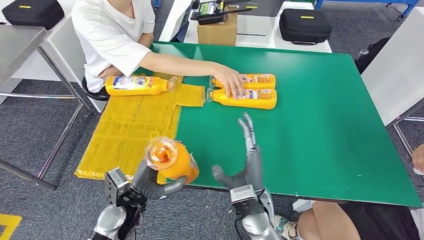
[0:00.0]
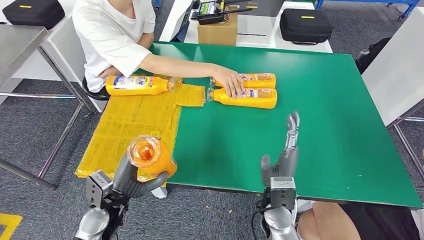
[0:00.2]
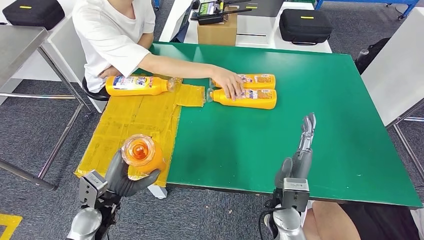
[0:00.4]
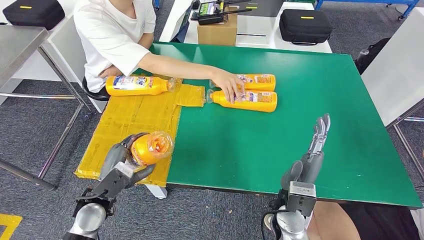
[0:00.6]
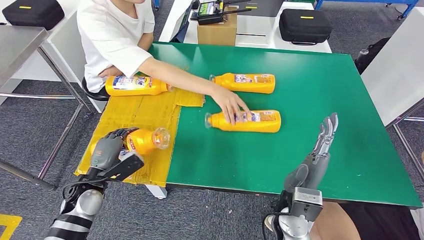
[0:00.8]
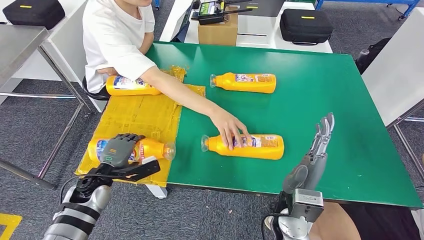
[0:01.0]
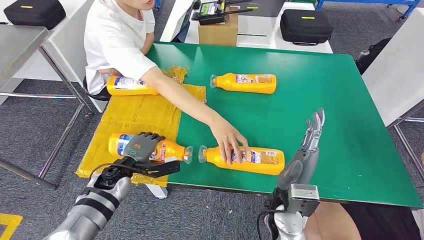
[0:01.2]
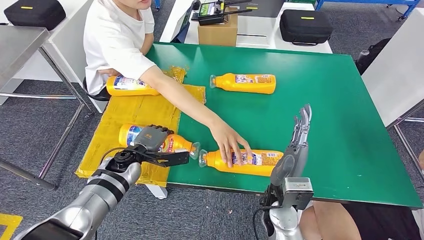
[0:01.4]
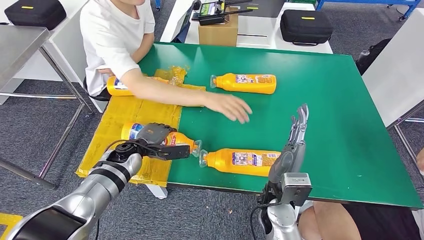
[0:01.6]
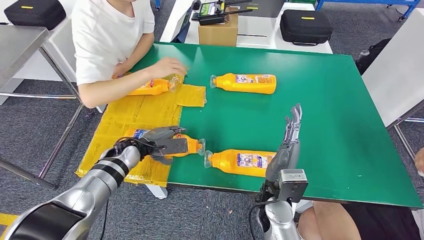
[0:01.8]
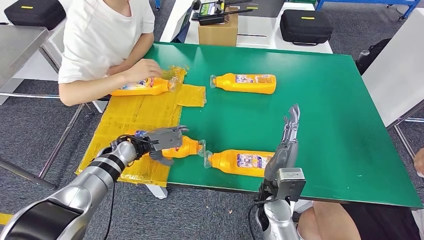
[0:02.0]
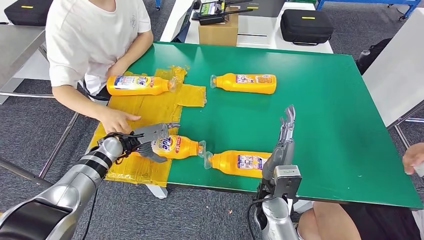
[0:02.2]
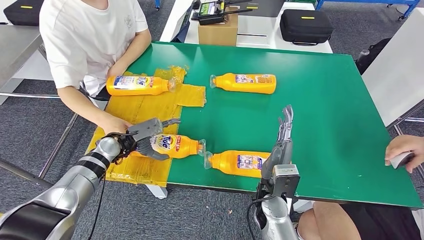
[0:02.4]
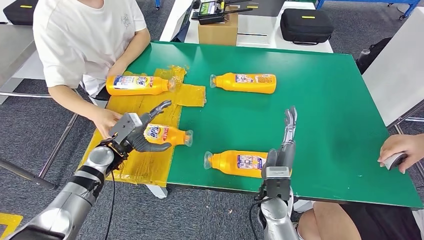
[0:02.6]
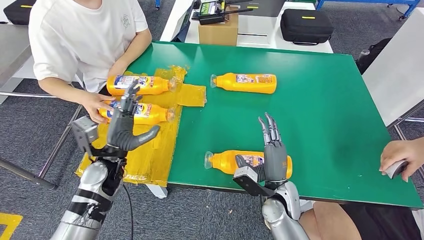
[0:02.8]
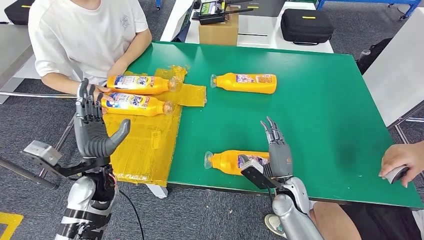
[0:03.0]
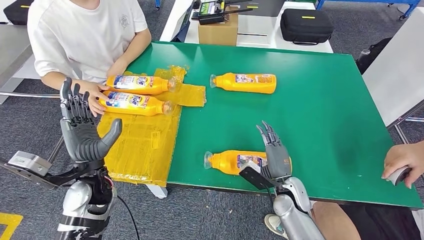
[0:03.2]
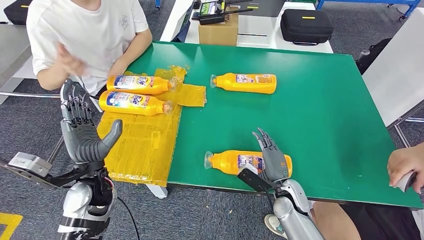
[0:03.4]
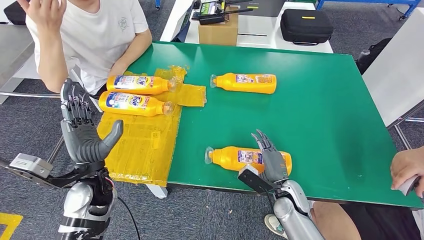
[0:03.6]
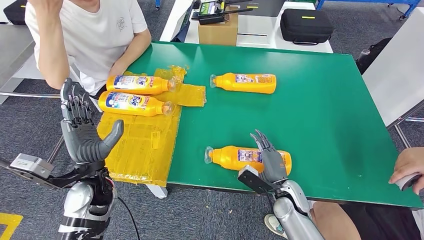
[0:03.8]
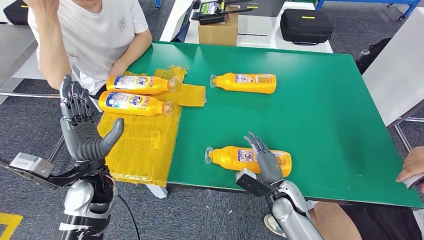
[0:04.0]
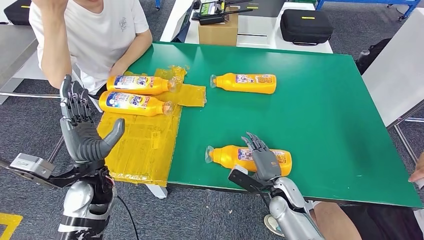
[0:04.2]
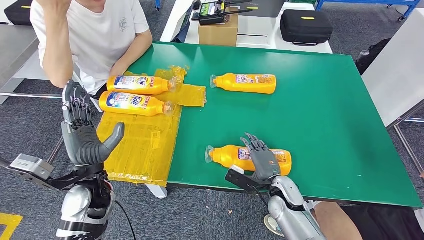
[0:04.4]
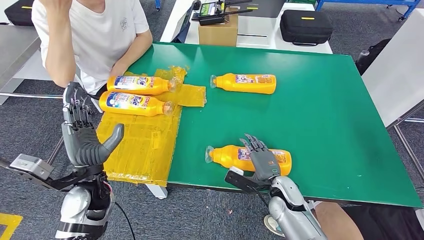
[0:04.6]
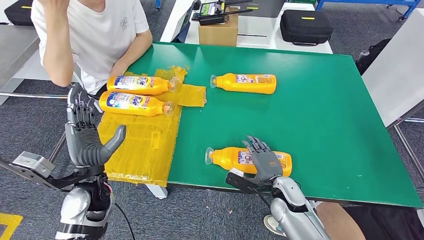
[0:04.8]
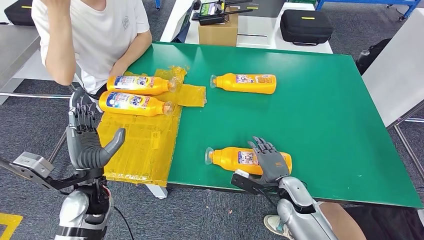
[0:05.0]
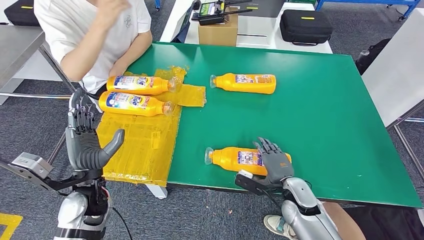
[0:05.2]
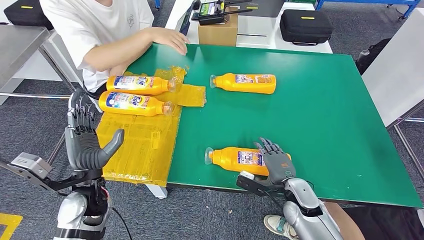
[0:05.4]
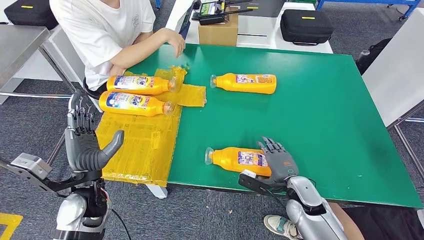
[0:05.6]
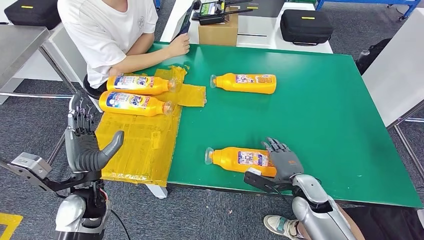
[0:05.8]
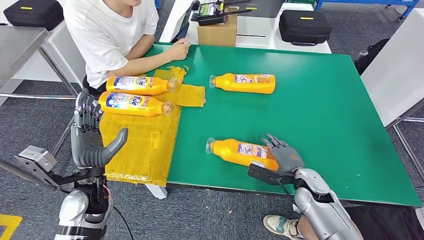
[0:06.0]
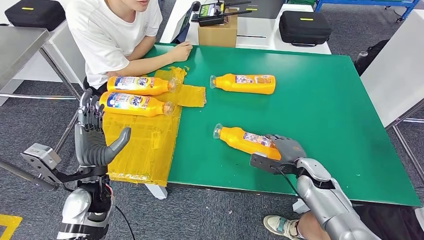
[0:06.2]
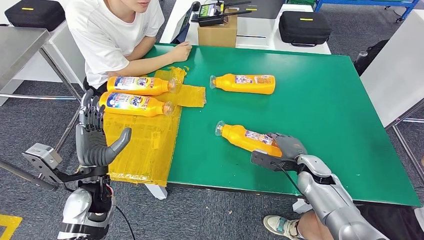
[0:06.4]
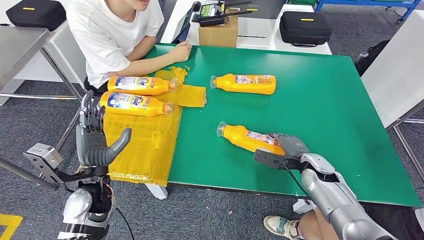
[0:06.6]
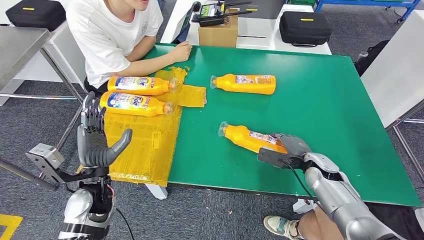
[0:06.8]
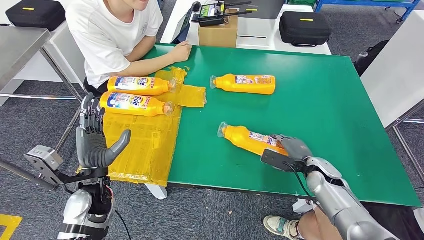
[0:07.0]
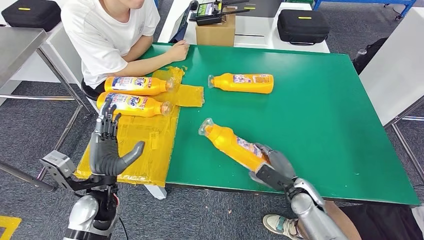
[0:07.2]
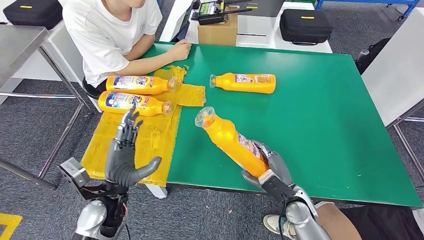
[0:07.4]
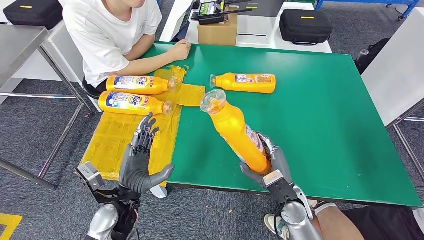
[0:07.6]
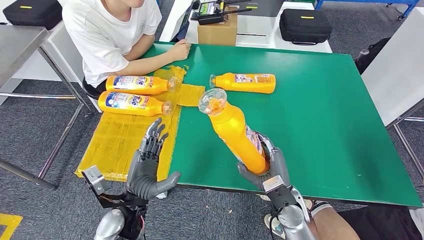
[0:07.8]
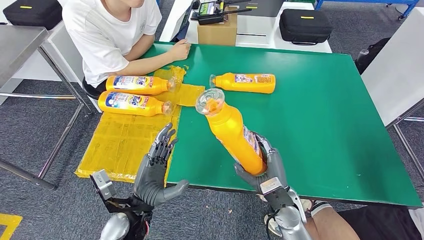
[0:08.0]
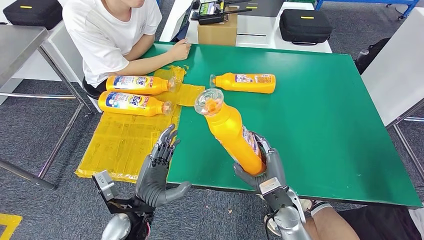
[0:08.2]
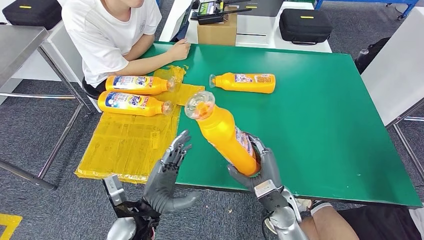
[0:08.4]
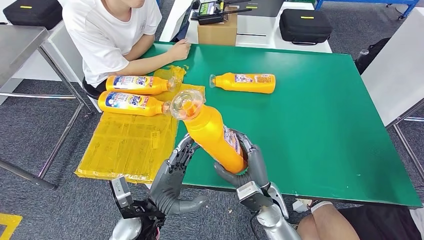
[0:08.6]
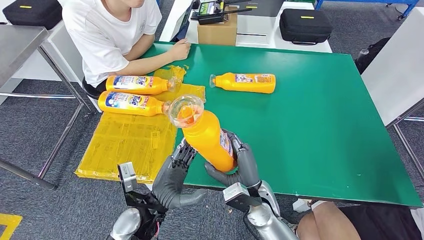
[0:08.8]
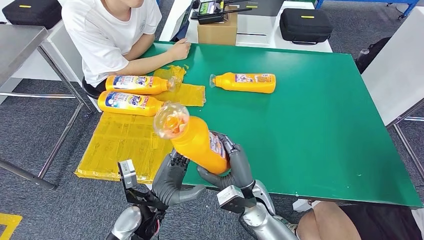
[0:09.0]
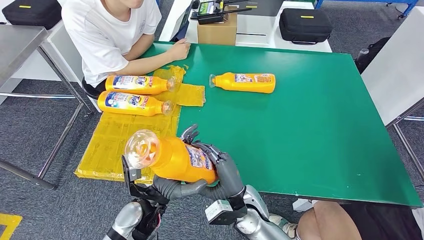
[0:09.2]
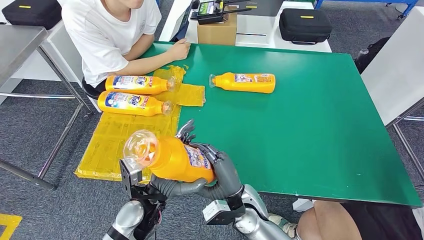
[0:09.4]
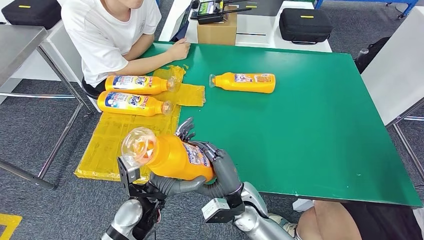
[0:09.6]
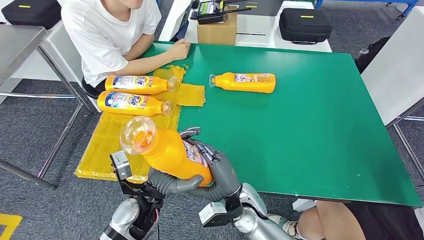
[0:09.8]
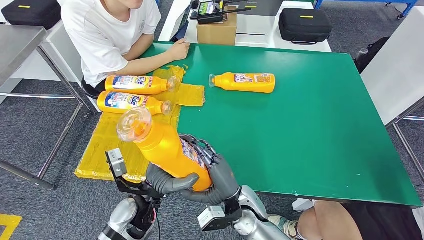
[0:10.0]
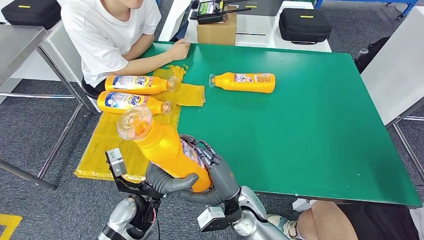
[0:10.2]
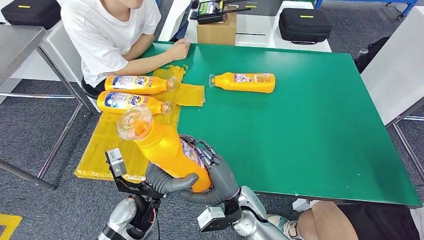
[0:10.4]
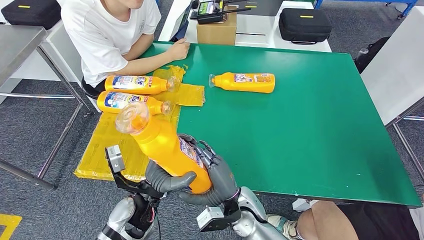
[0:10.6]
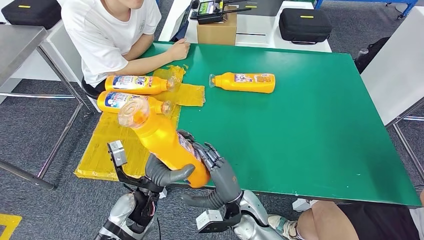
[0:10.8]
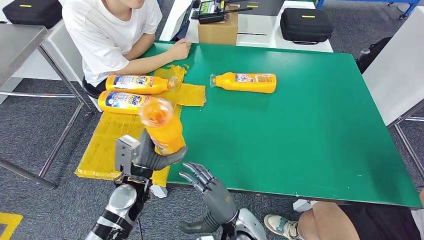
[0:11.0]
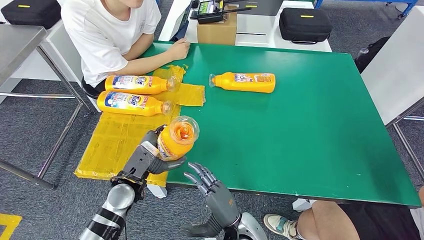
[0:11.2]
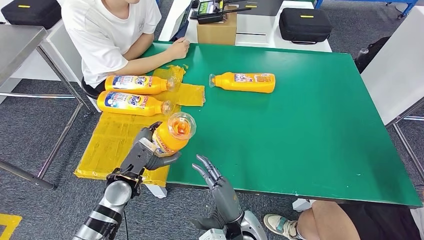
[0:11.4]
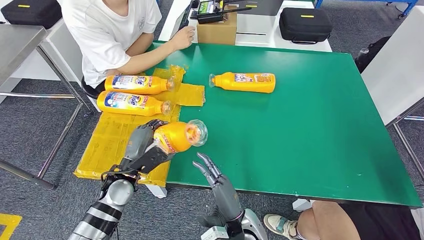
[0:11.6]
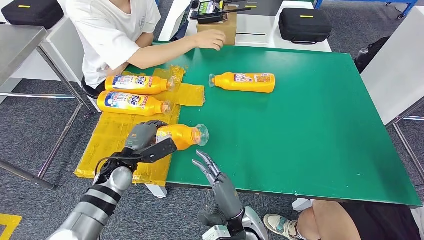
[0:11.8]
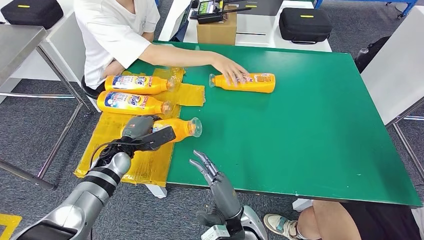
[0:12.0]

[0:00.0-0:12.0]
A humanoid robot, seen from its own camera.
Step, 0:00.0 to 0:04.2: Flip the fast-moving consumer goods bottle to the front side.
Step, 0:04.4 to 0:08.2: Pick up the fast-moving consumer goods bottle from the table.
0:06.0 to 0:07.6: The left hand travels to the right by approximately 5 cm. The right hand heads to the left, covering some 5 cm.
0:07.6 to 0:09.0: The left hand goes roughly 5 cm to the right; the right hand goes some 10 cm to the left.
0:09.0 to 0:10.4: The hands move only a little.

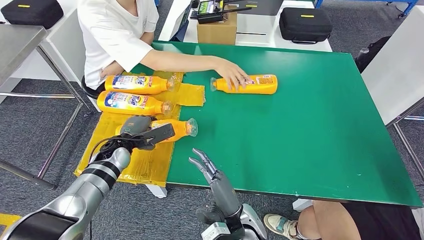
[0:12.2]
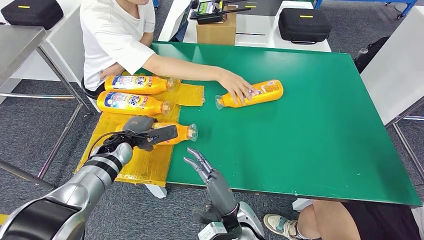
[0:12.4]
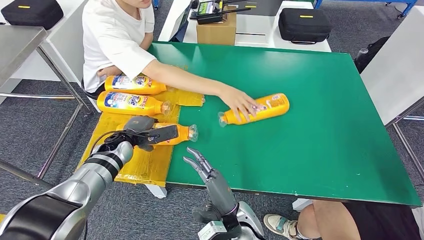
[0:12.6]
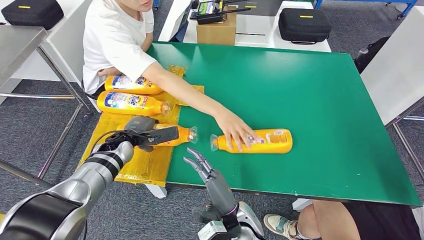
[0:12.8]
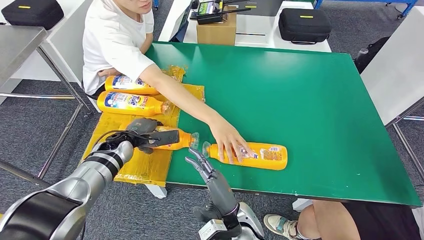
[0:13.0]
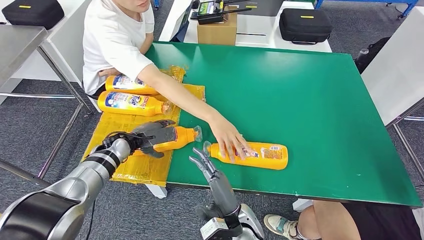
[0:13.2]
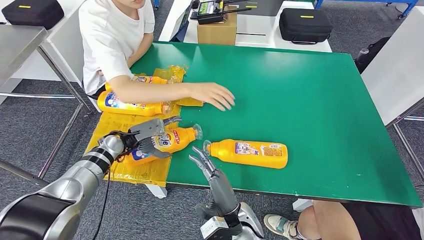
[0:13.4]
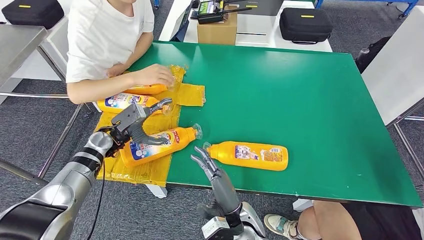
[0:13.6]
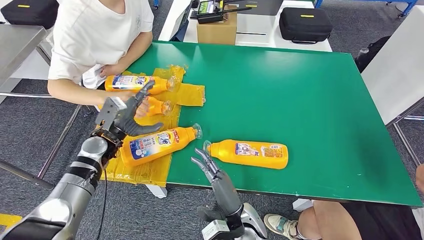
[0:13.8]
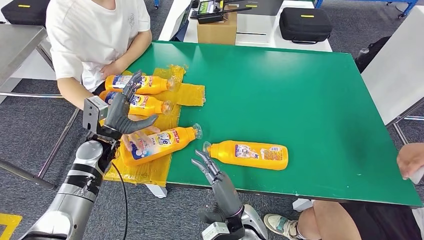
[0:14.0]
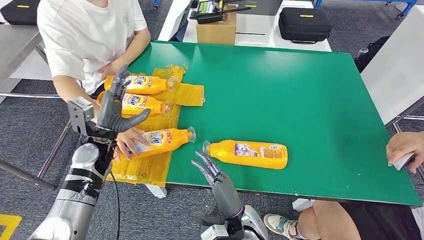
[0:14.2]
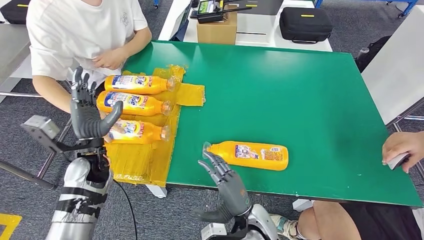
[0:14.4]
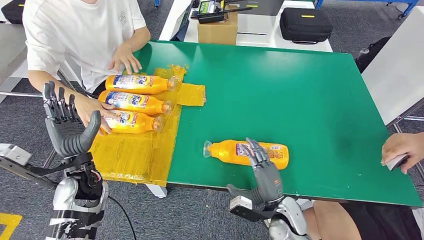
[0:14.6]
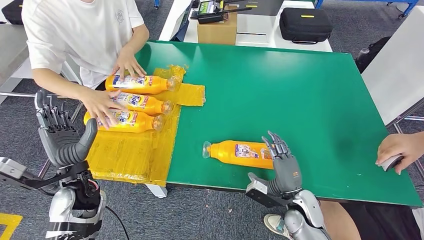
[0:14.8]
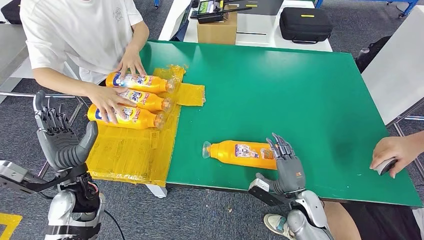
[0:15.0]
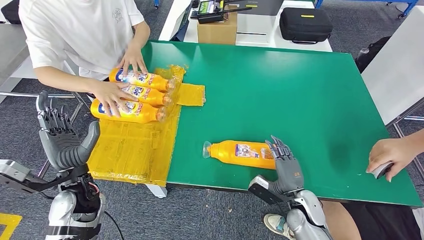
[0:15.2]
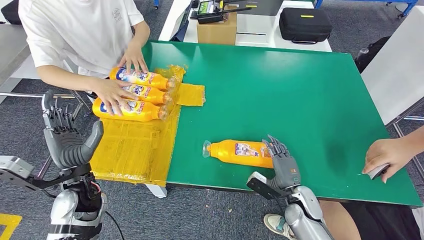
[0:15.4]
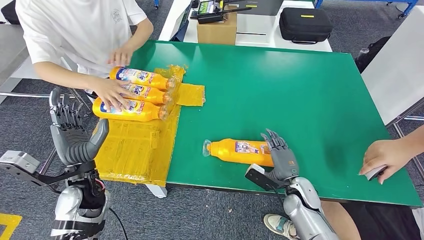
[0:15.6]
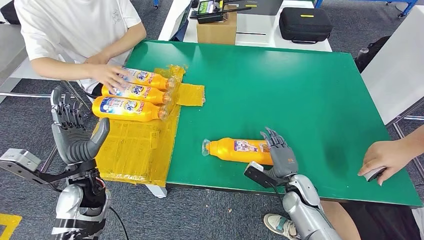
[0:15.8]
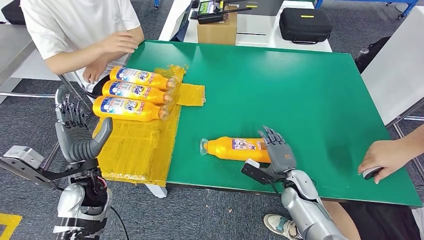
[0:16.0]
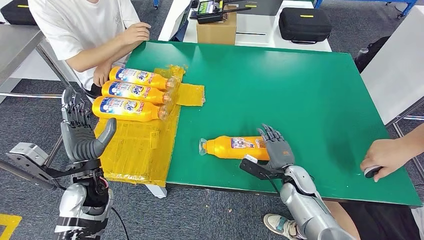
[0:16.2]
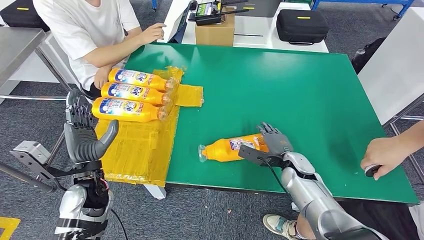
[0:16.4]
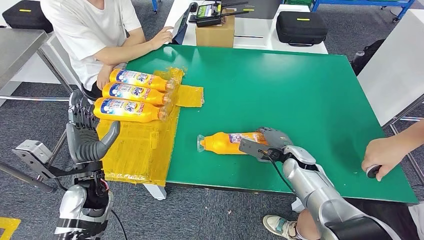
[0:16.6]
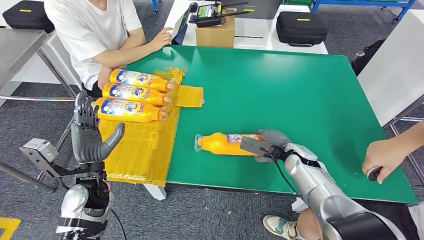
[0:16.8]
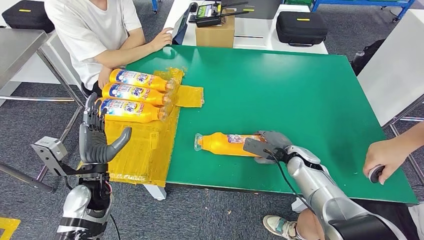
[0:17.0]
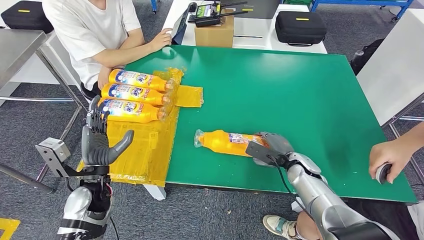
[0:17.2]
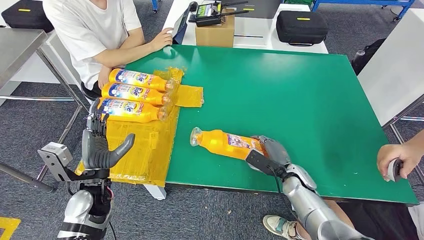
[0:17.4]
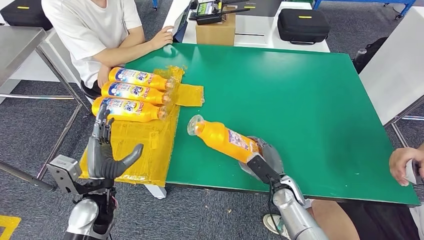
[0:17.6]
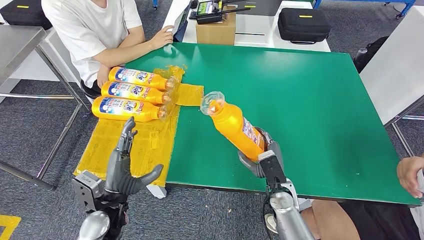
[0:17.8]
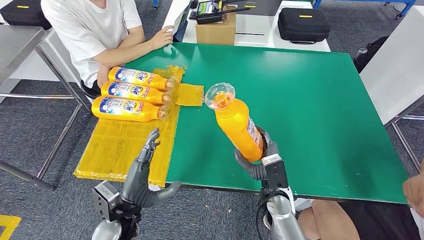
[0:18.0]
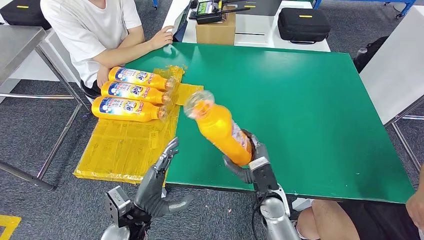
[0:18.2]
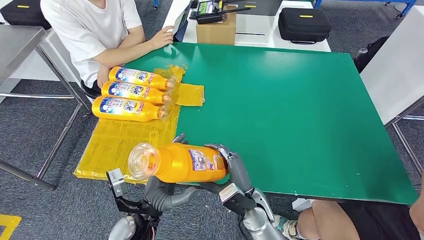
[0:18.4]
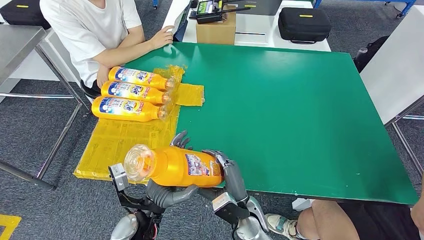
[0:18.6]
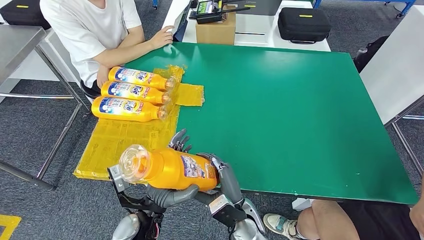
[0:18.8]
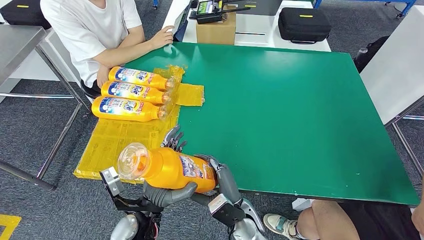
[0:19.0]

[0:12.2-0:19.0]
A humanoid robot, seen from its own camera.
Step, 0:12.2 to 0:15.4: Flip the fast-moving consumer goods bottle to the front side.
